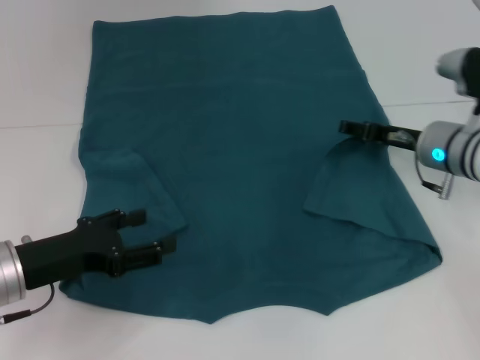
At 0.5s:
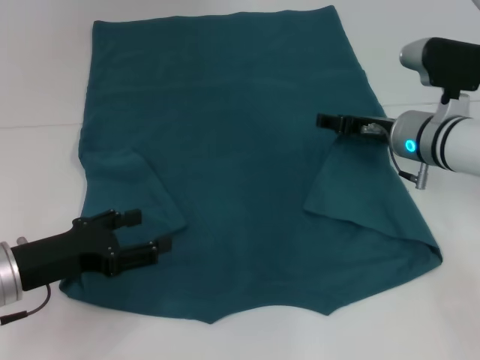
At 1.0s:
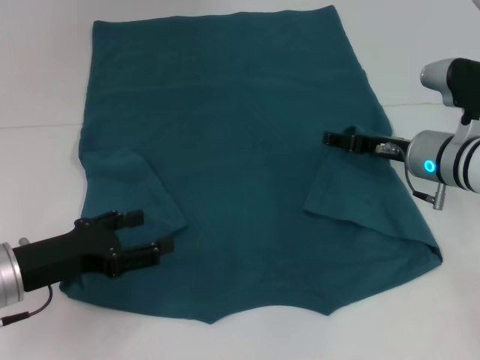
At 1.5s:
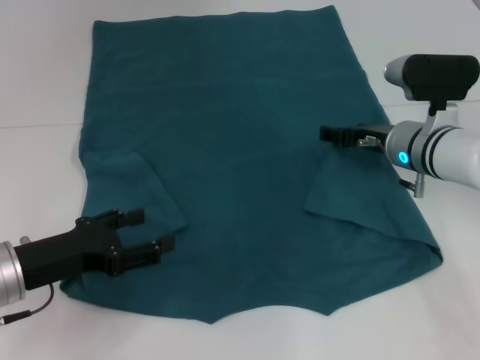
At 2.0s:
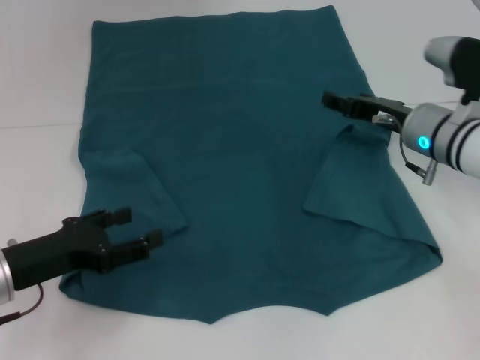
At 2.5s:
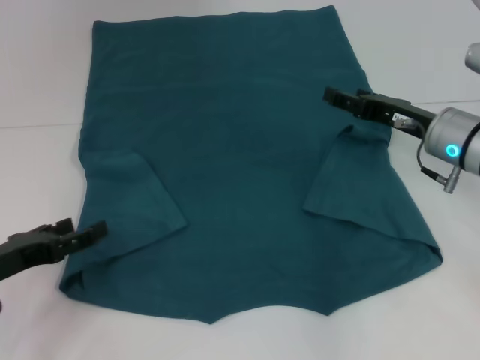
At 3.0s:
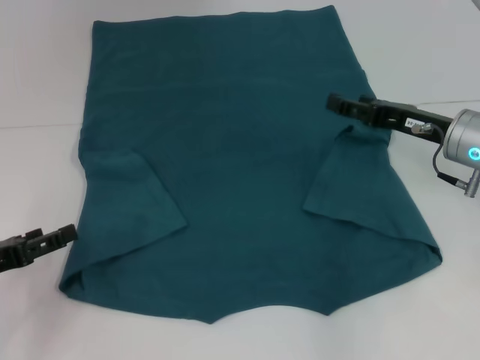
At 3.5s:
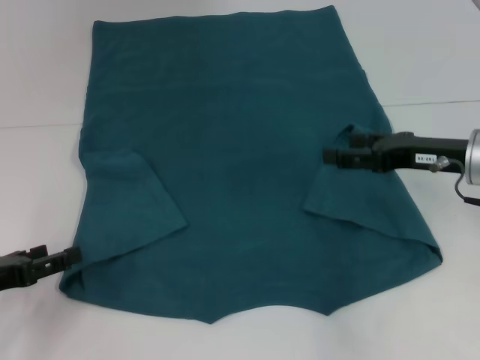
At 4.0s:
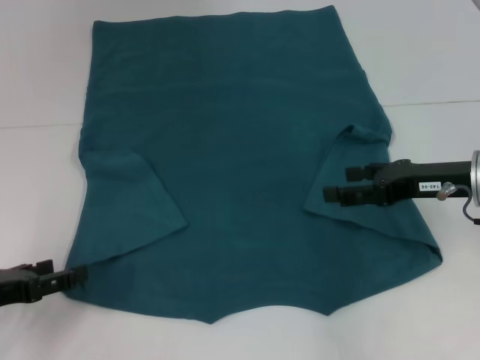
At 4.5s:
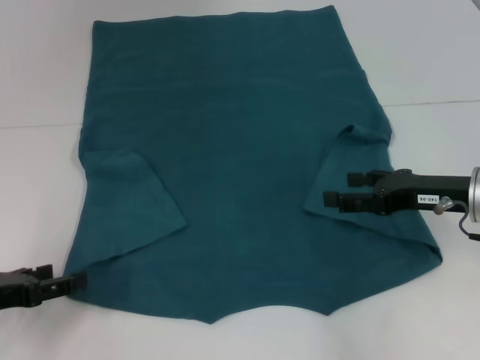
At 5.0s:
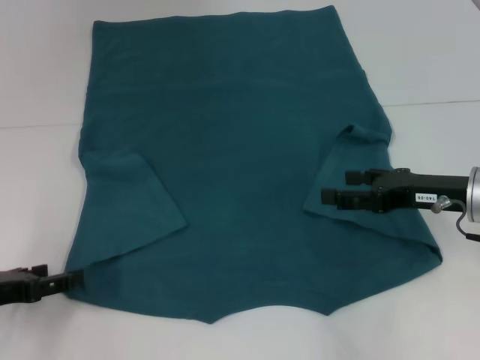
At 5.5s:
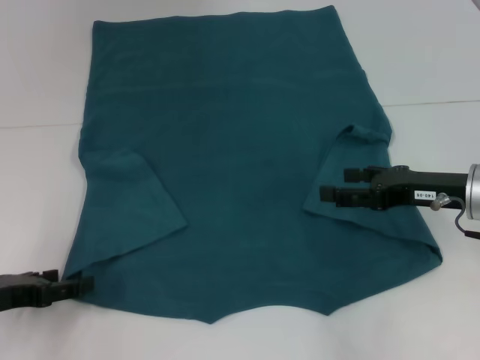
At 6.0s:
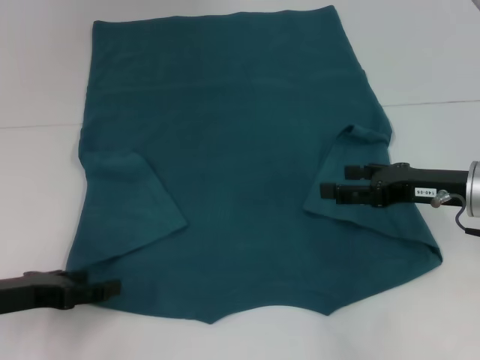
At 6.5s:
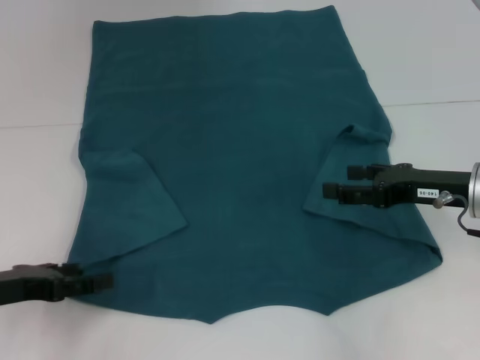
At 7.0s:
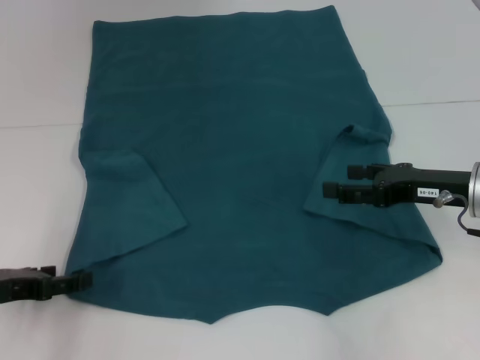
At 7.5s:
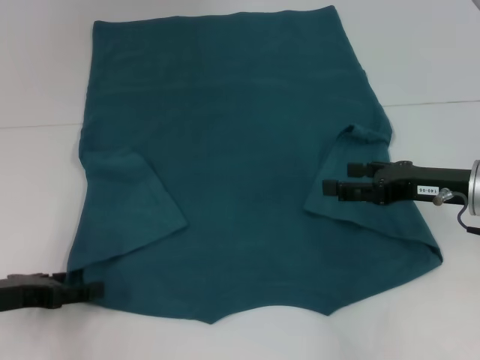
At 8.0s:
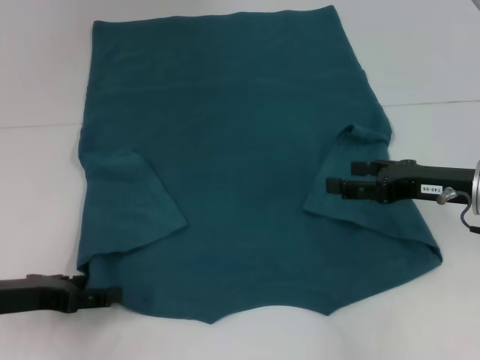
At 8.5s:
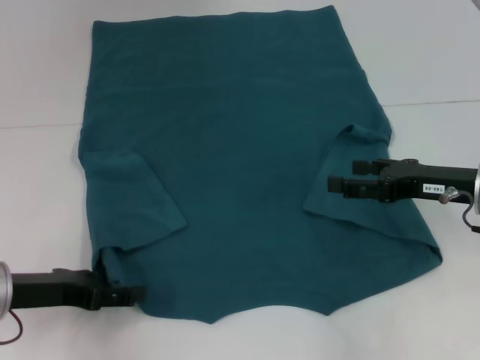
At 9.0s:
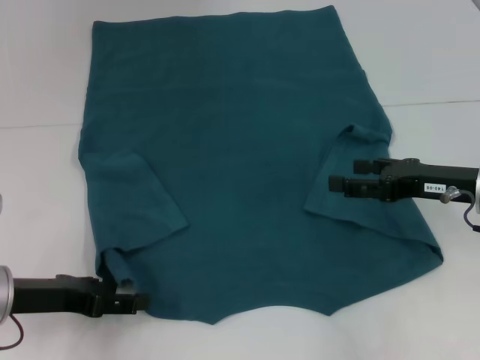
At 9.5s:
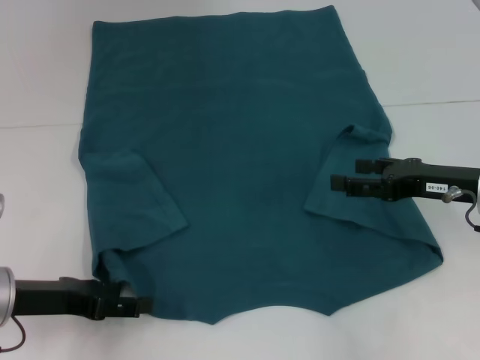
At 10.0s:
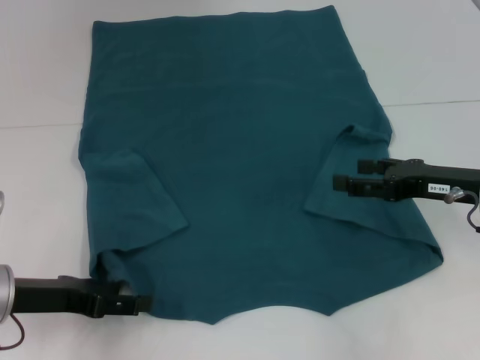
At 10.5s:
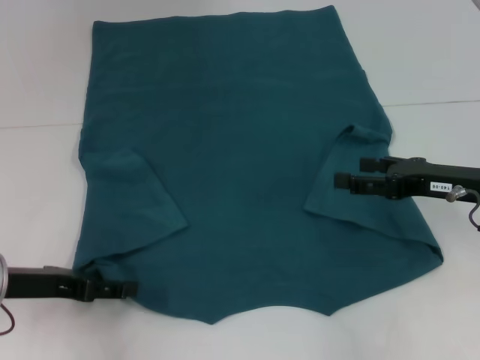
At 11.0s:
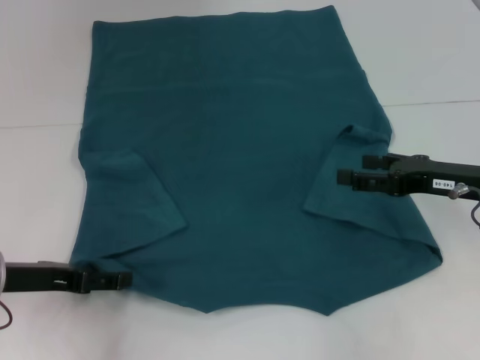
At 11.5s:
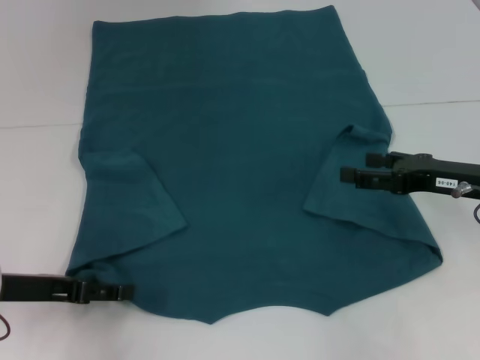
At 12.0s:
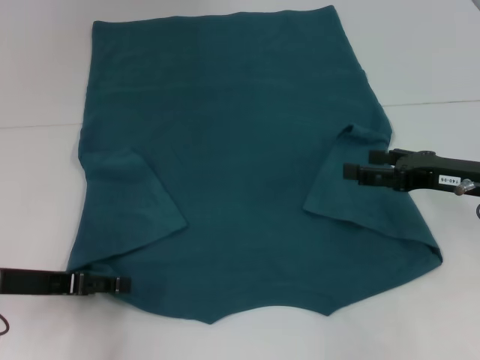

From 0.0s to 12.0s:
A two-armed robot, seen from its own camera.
Step, from 0.0s to 2.0s: Fold the bottom right sleeve to the right.
From 0.0s to 2.0s: The grippers make only small movements.
From 2.0s to 4.0s: The left gripper goes about 5 cm to the left. Meanwhile the right gripper goes approximately 5 cm backward.
From 4.0s to 8.0s: The grippers move only a little.
From 8.0s to 12.0s: The grippers move only a little.

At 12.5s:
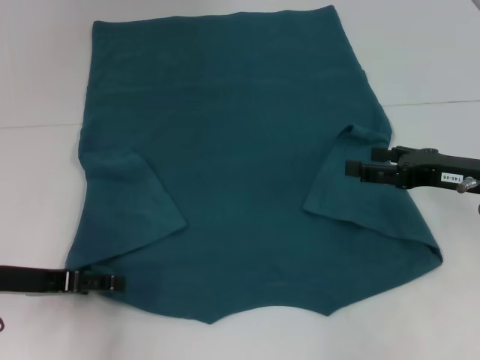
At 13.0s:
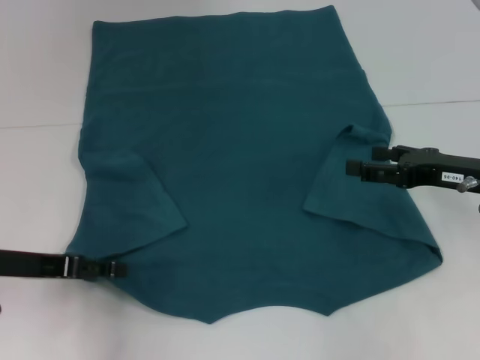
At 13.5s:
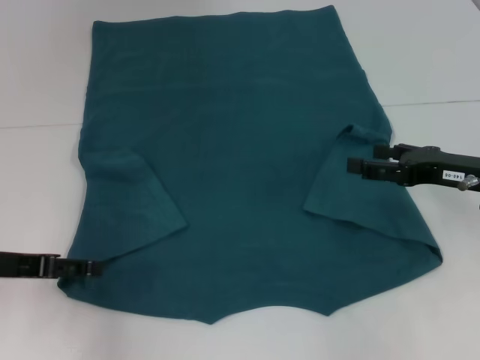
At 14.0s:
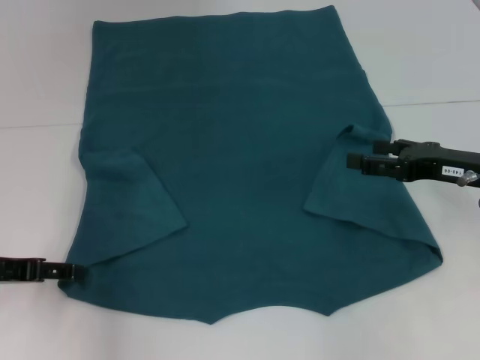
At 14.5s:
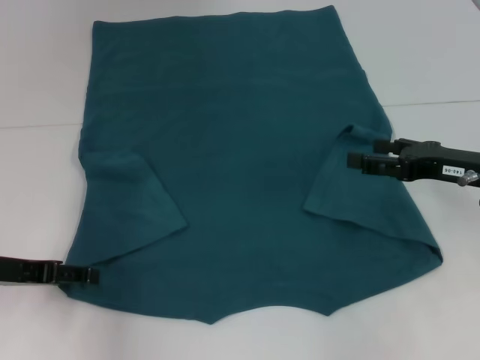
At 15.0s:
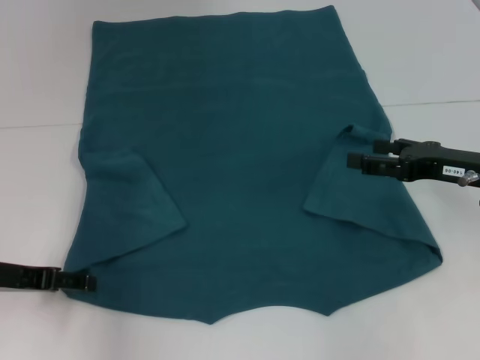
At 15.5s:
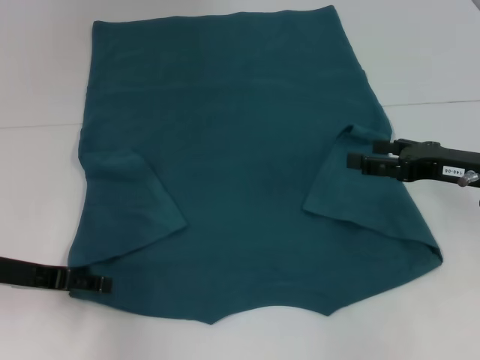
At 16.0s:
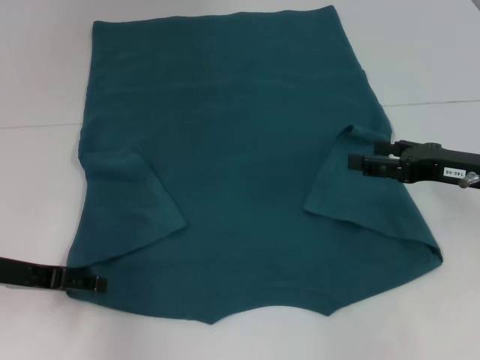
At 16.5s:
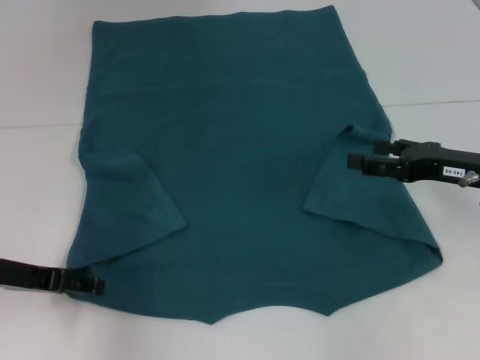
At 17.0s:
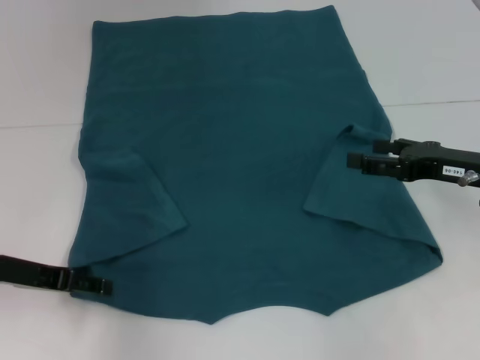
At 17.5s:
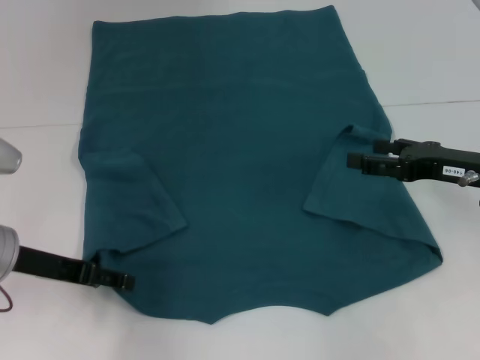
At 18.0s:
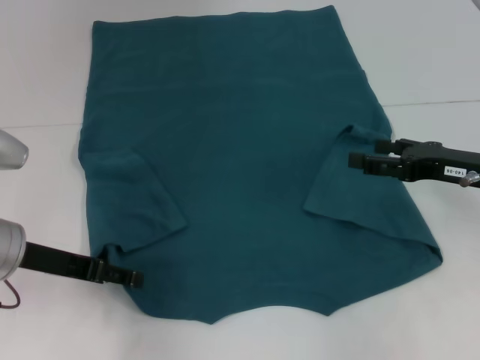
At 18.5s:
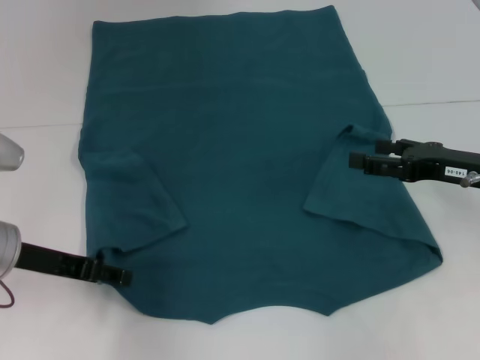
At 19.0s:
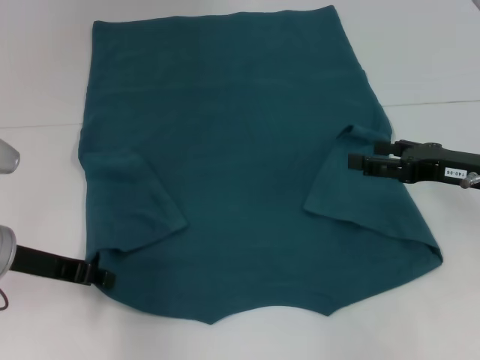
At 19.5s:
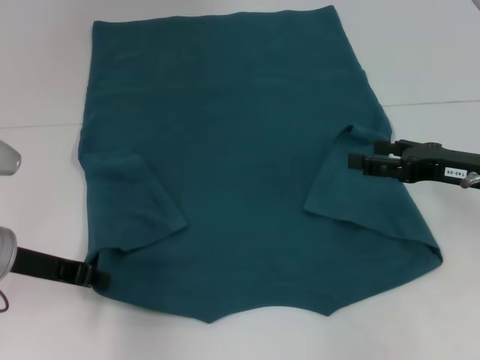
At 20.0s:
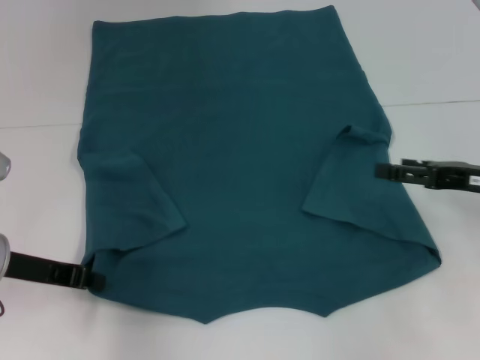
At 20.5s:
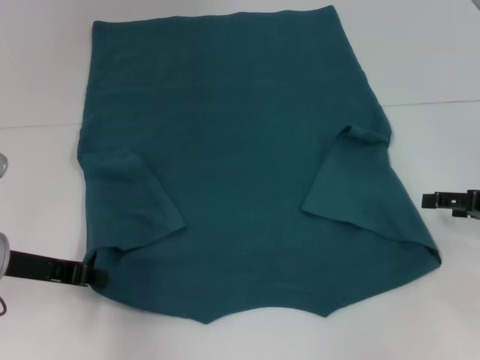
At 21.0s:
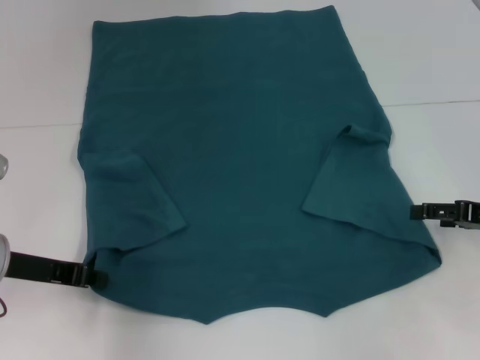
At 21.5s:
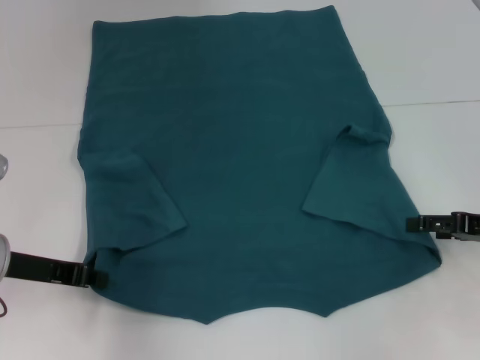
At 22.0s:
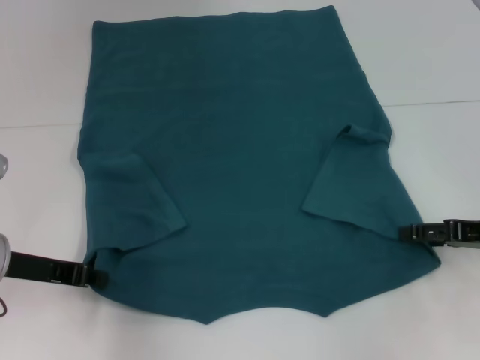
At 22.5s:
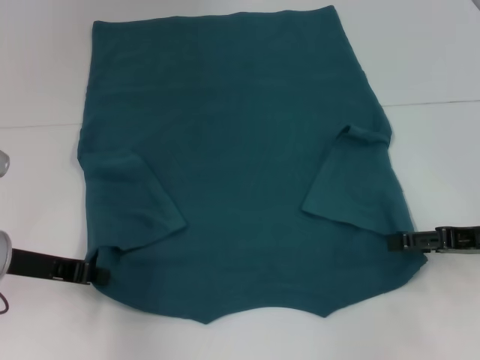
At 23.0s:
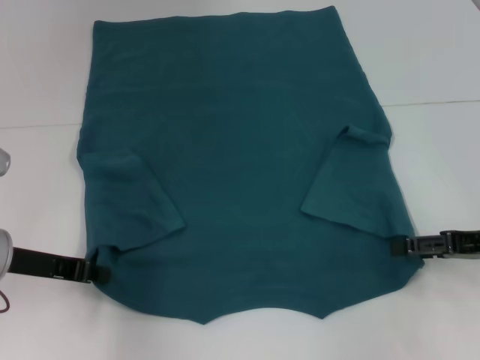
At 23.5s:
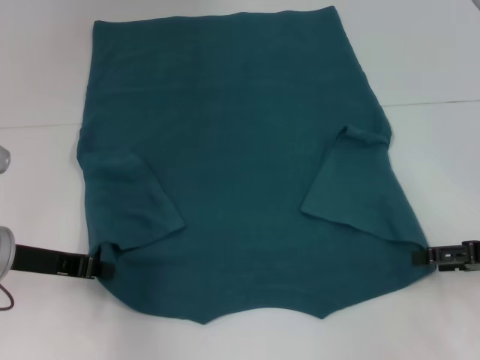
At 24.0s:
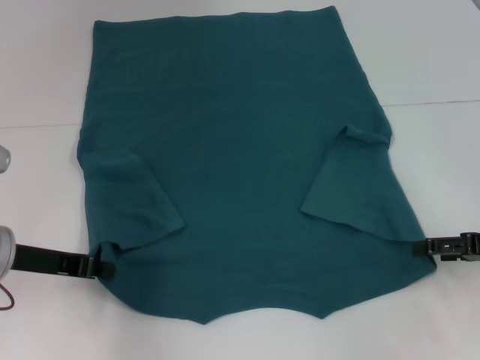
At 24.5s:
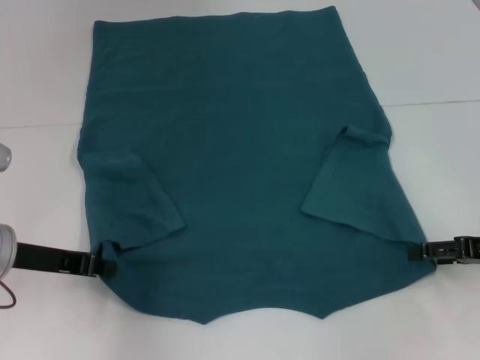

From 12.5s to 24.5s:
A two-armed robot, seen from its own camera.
Step, from 12.5s to 19.0s: Grab the bottom left corner with your left hand.
From 12.5s to 18.5s: The grippers move only a little.
From 18.5s to 20.5s: The left gripper closes. Meanwhile the right gripper shifts some 5 cm to the right.
From 20.5s to 24.5s: There are only small adjustments of the grippers.

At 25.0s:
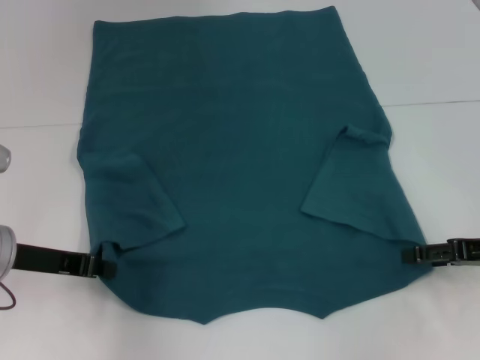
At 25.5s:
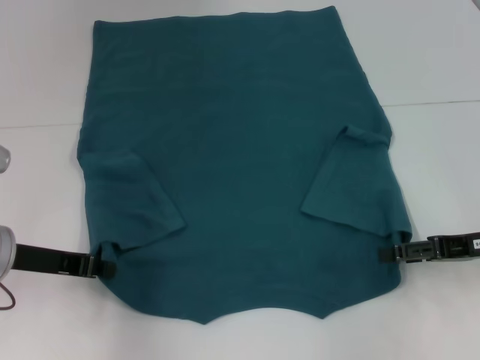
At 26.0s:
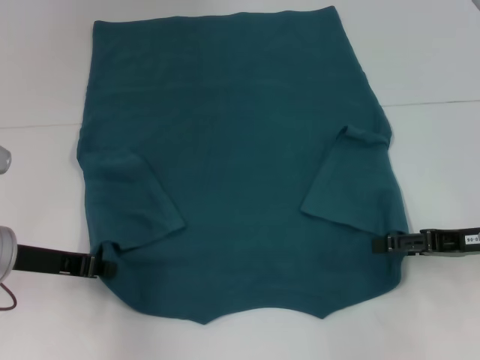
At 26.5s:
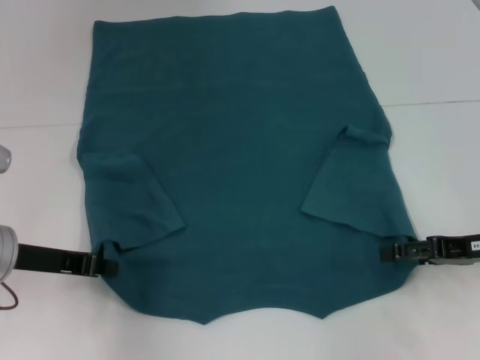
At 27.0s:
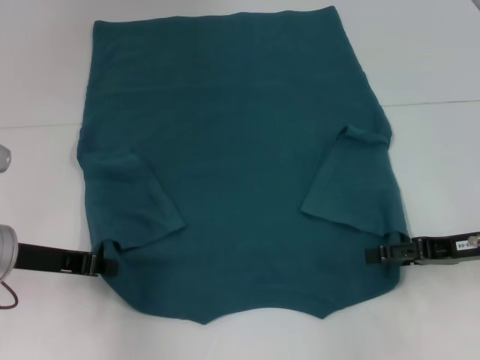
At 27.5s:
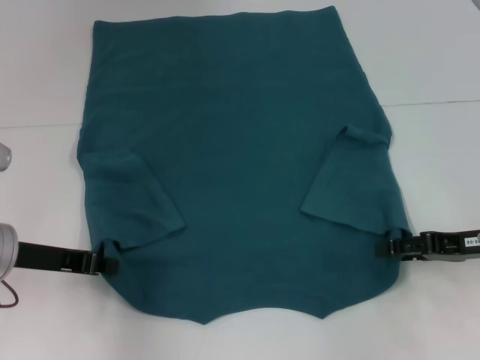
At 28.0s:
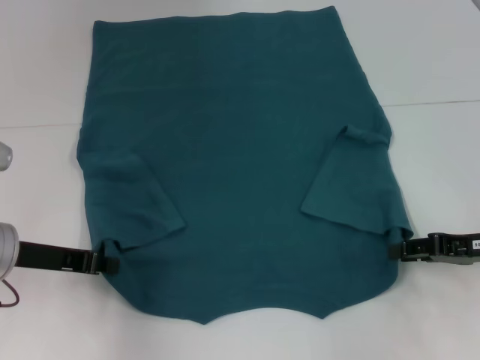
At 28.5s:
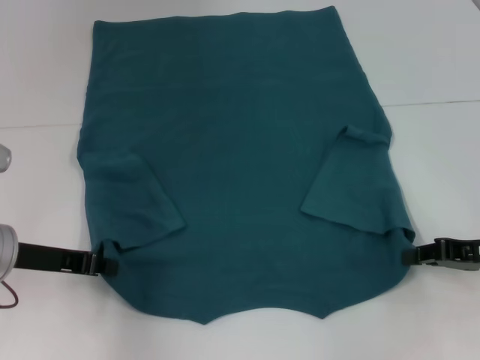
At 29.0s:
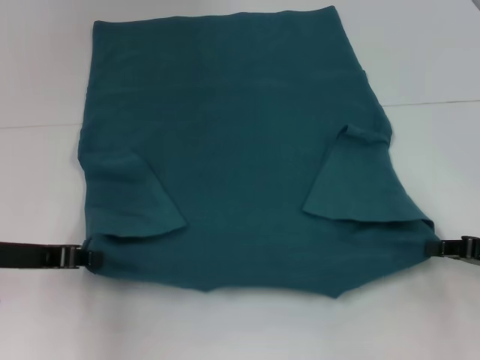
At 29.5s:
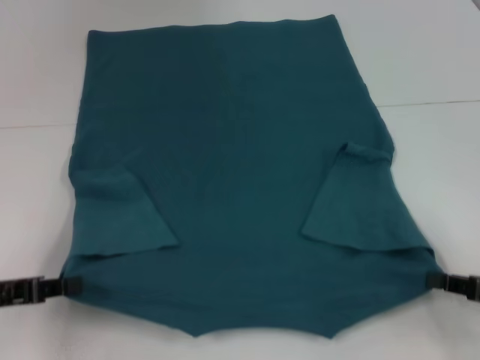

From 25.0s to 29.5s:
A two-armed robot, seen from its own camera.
Step, from 25.0s to 28.5s: Grab the bottom right corner with your right hand.
From 25.0s to 27.0s: There are only small adjustments of the grippers.
From 27.0s to 29.5s: The left gripper heads to the left and backward, covering roughly 10 cm; the right gripper travels backward by approximately 10 cm, and closes its fingers.
